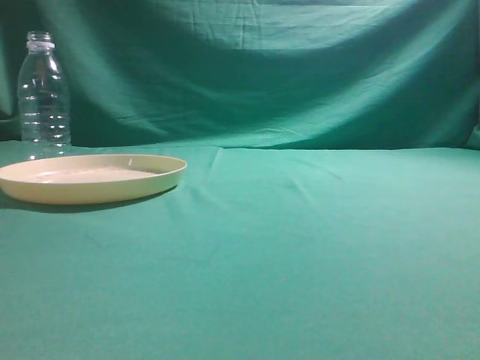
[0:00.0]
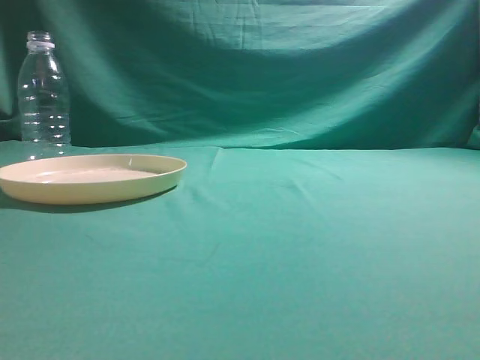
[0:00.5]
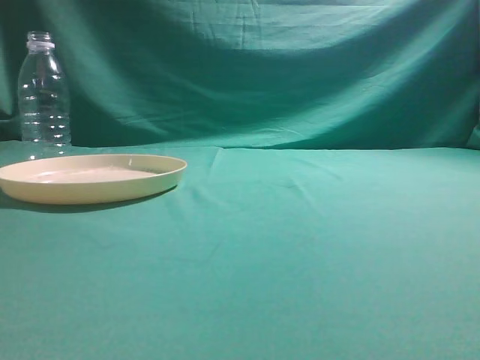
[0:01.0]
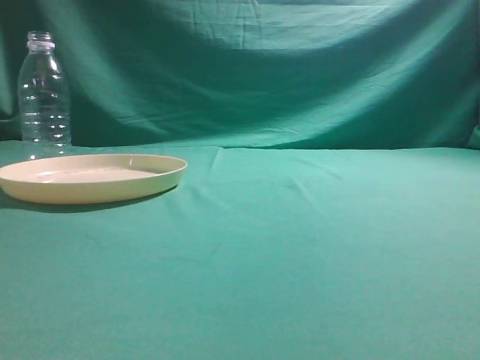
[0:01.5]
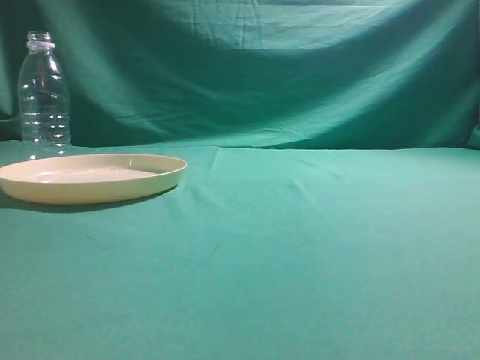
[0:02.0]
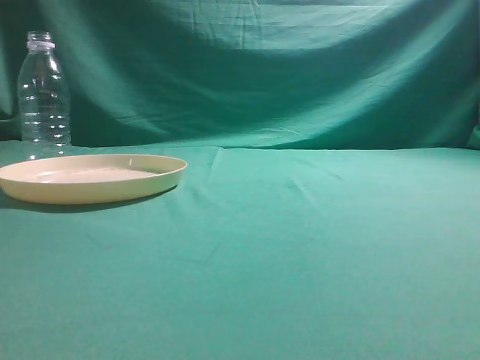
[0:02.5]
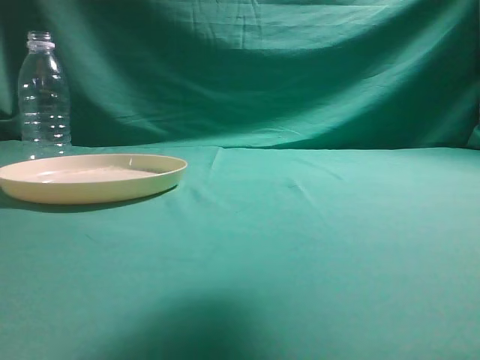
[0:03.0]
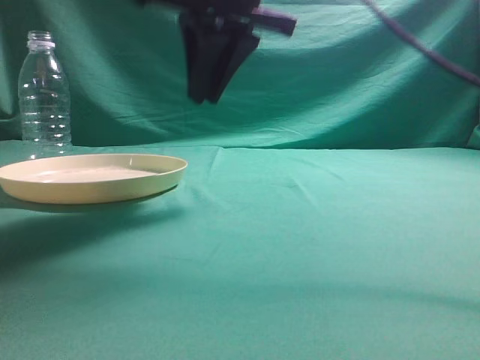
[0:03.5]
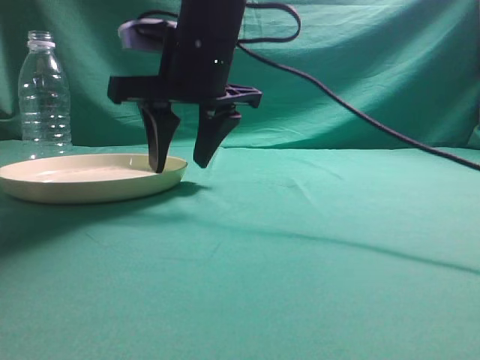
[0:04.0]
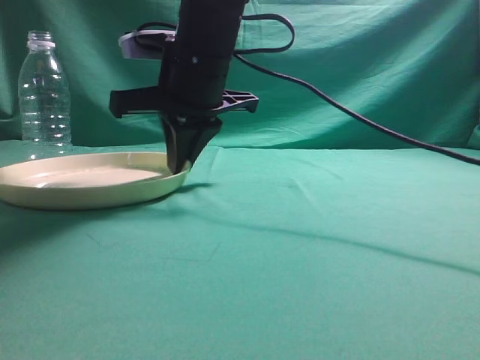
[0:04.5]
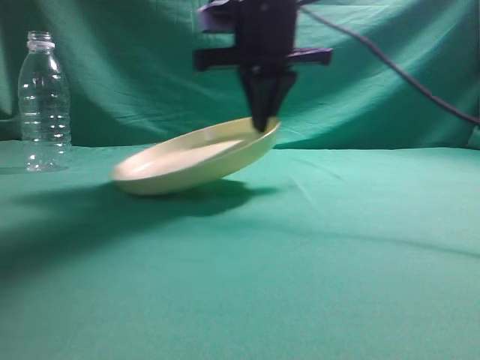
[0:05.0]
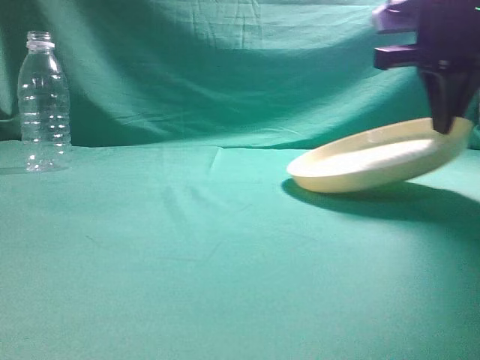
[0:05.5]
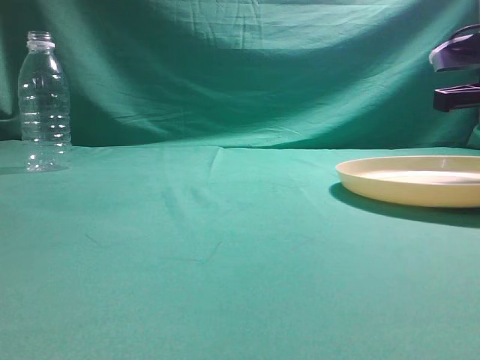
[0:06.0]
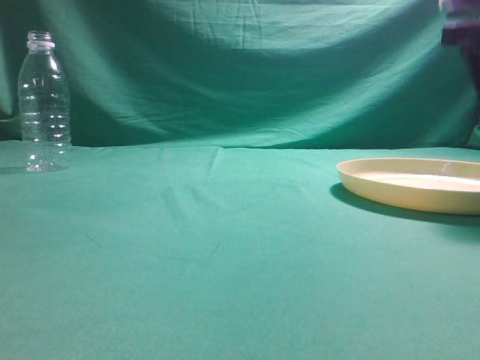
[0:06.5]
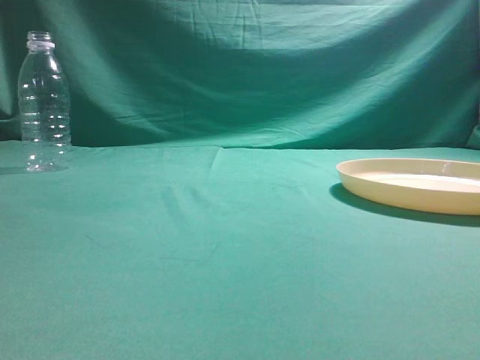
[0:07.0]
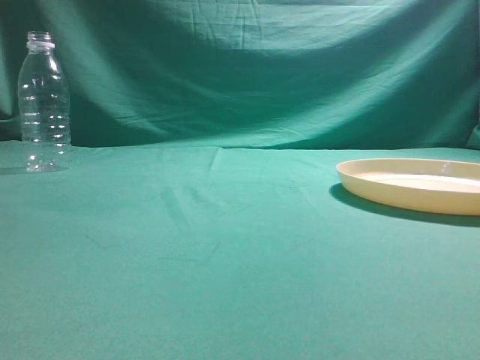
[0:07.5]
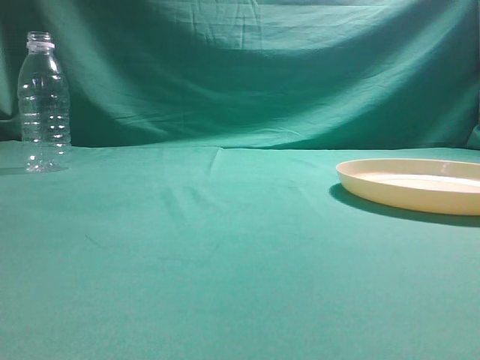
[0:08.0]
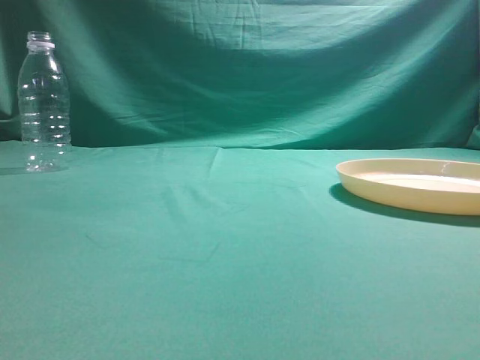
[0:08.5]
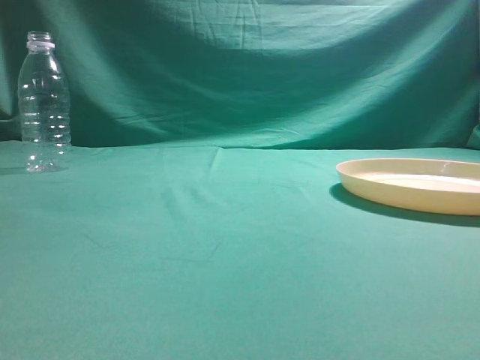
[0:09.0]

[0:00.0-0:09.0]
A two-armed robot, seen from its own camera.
Step, 0:00.0 to 0:04.5: Pick the container that can hold fruits.
Step, 0:05.0 to 0:06.5: Move the picked object to the right side of the table.
0:02.0 to 0:04.5: The right gripper travels to the left and forward by approximately 40 cm, and opens, then closes once more.
0:04.5 to 0:07.0: The right gripper moves to the right and upward, about 35 cm, and opens, then closes once more.

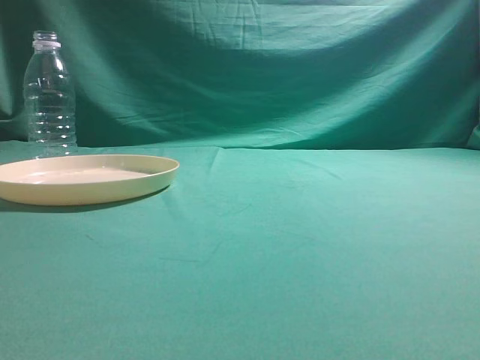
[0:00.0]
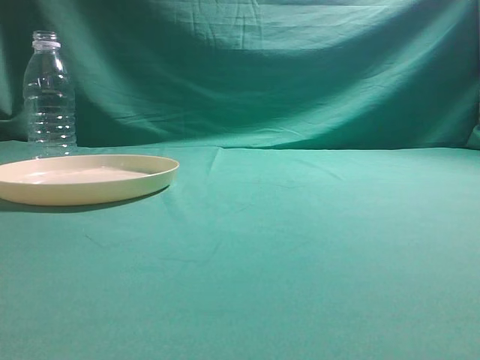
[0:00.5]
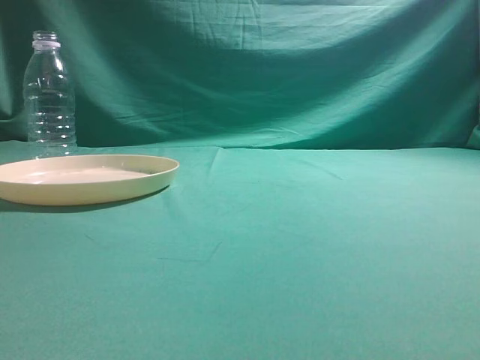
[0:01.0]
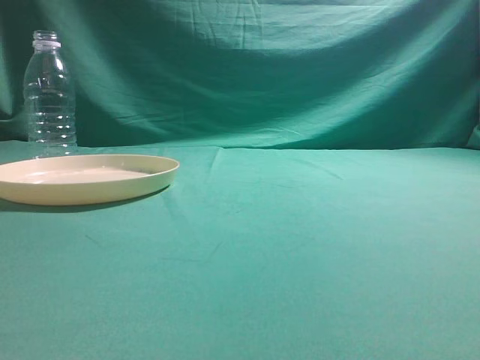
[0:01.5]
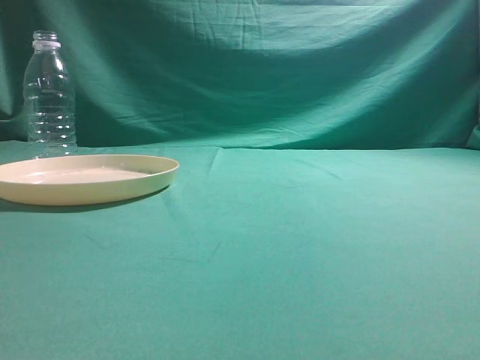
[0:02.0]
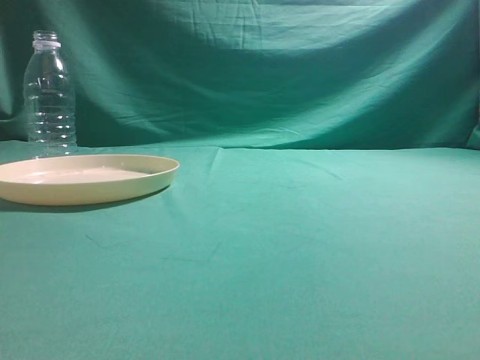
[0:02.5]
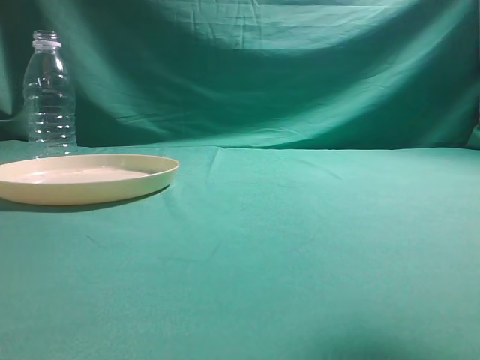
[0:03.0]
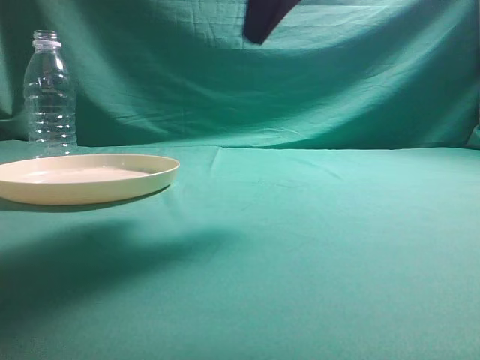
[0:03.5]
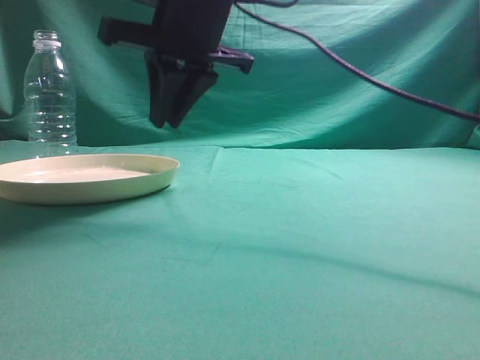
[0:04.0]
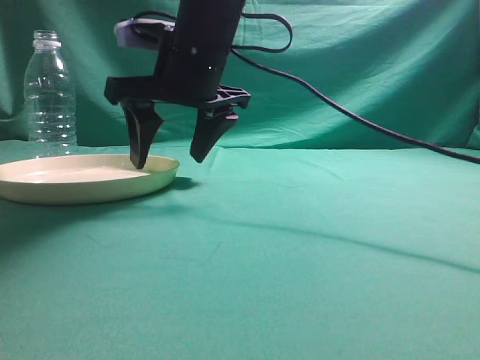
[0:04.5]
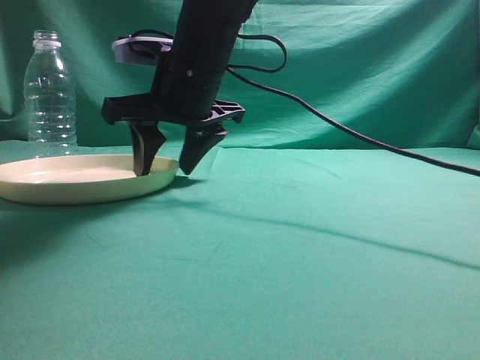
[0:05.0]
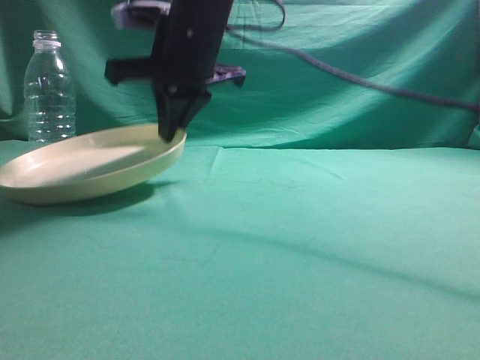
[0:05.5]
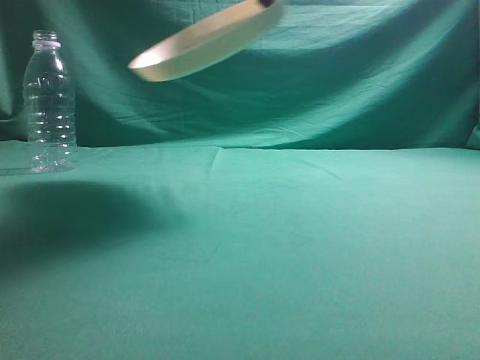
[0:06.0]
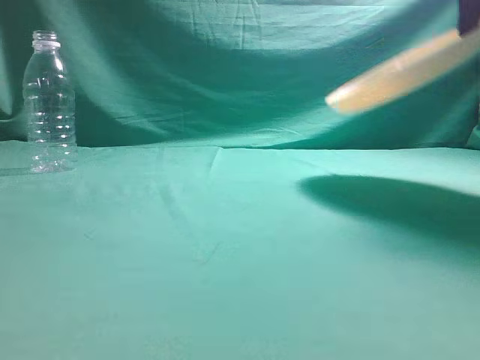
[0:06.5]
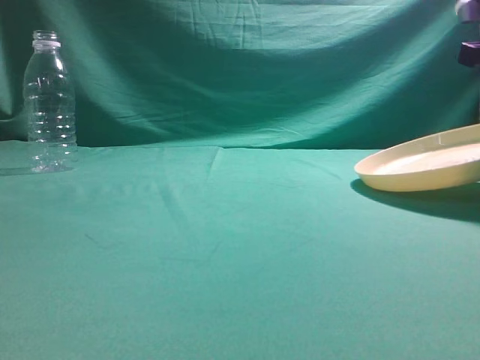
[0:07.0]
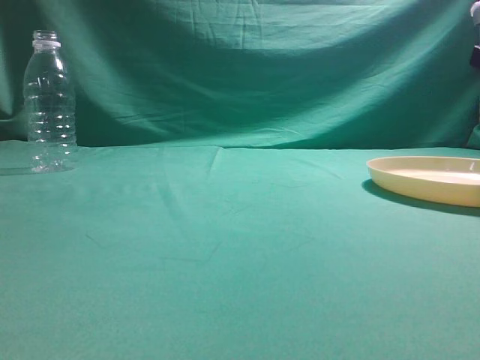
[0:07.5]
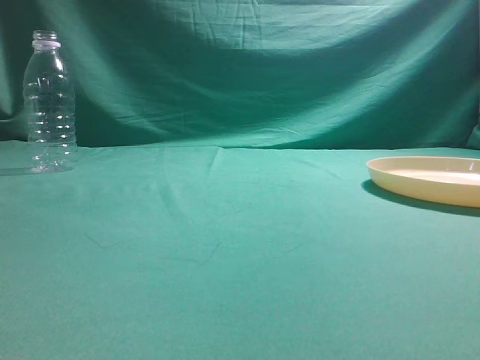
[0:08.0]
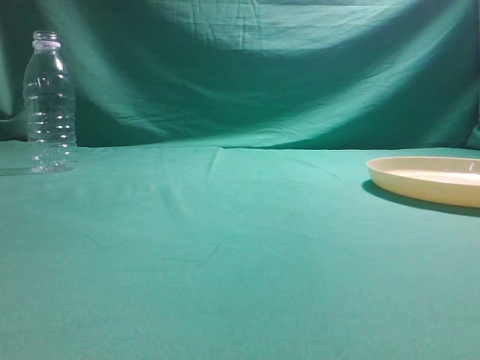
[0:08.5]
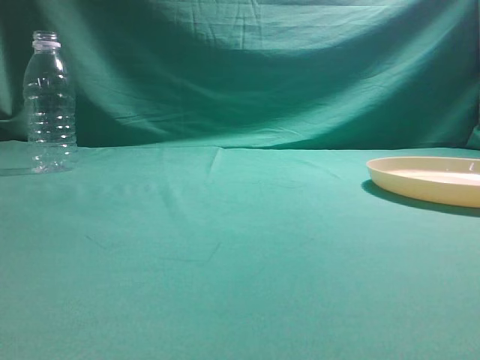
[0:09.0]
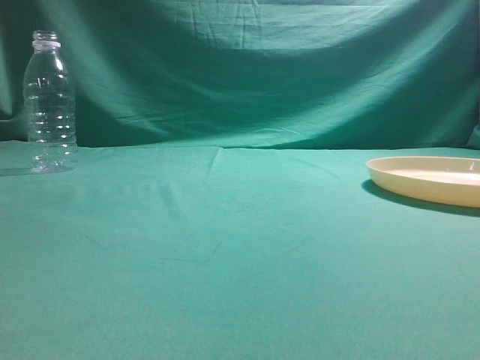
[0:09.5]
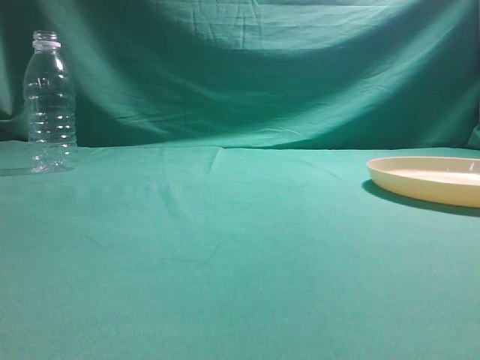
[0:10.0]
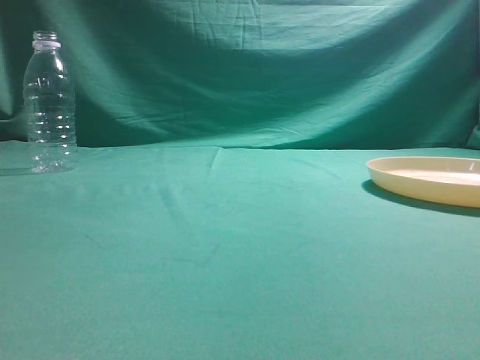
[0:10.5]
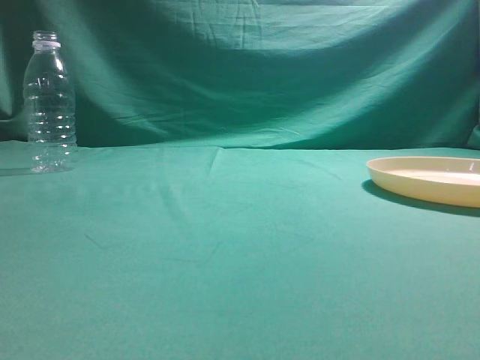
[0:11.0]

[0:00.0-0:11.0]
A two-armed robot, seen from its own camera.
Step, 0:00.0 to 0:05.5: Pick the container that can hold fruits.
Step, 0:06.0 to 0:08.0: Move the picked object to the right side of the table.
0:02.0 to 0:03.5: The right gripper travels forward and to the left by roughly 30 cm.
0:03.5 to 0:05.5: The right gripper is displaced to the left, downward and forward by approximately 20 cm, and opens, then closes again.
0:05.5 to 0:07.5: The right gripper goes approximately 35 cm to the right, and opens its fingers.
